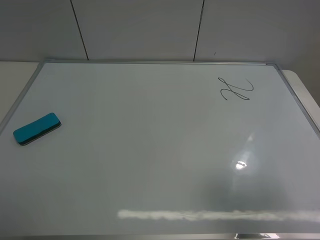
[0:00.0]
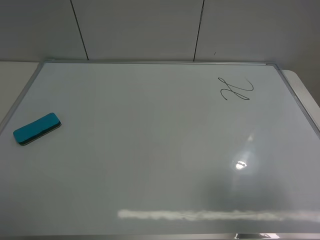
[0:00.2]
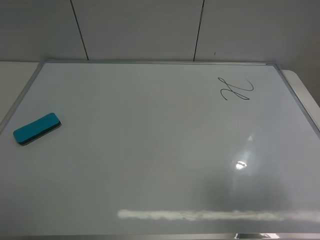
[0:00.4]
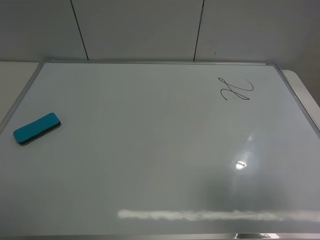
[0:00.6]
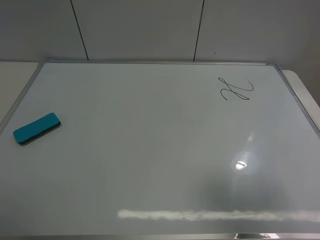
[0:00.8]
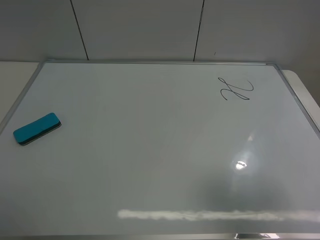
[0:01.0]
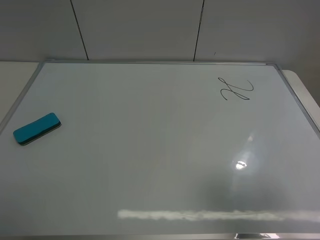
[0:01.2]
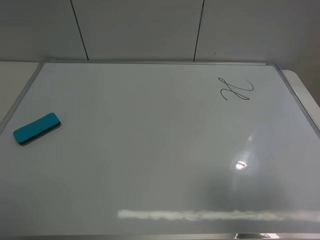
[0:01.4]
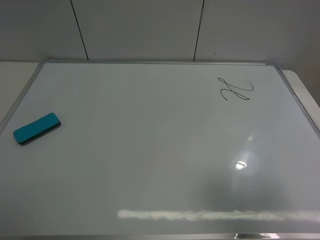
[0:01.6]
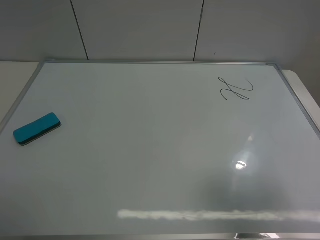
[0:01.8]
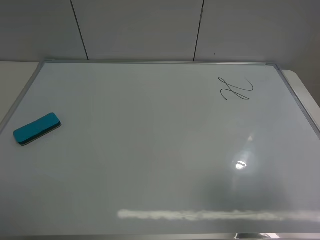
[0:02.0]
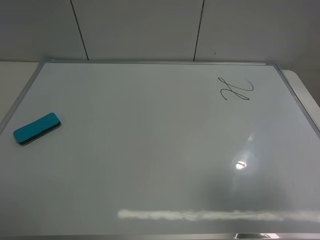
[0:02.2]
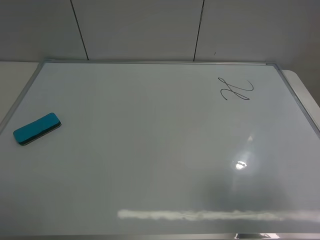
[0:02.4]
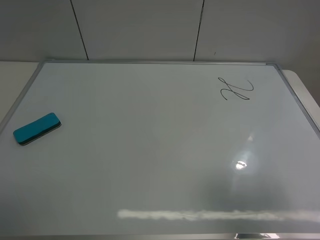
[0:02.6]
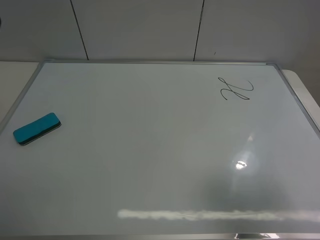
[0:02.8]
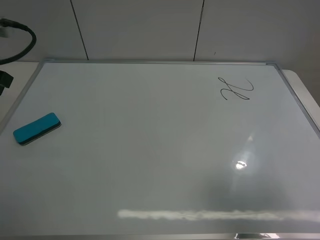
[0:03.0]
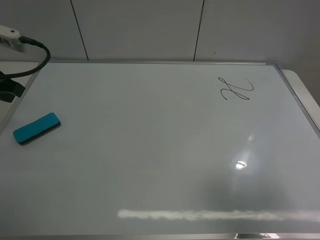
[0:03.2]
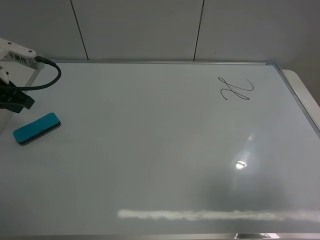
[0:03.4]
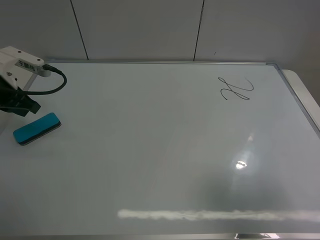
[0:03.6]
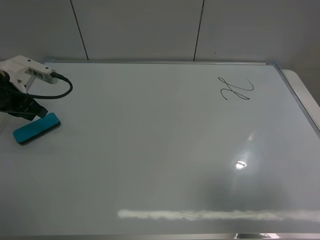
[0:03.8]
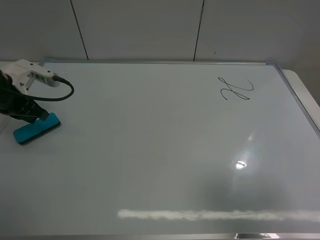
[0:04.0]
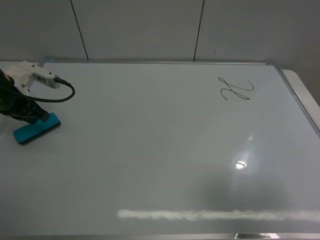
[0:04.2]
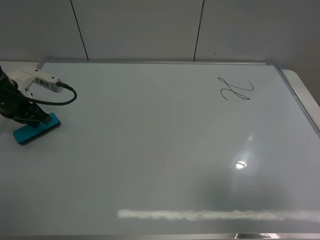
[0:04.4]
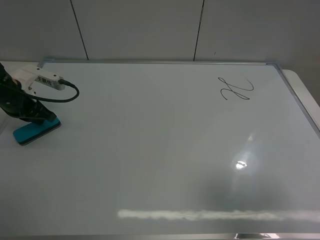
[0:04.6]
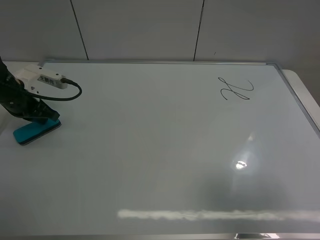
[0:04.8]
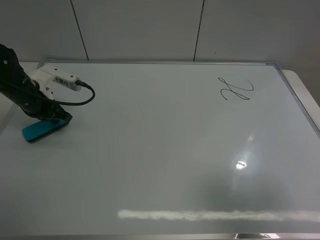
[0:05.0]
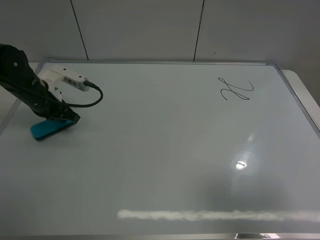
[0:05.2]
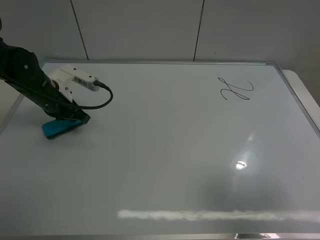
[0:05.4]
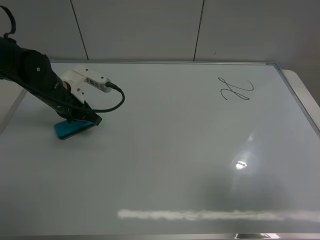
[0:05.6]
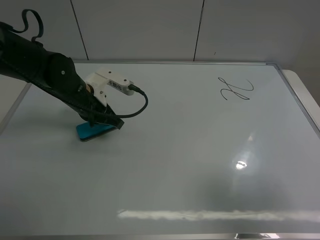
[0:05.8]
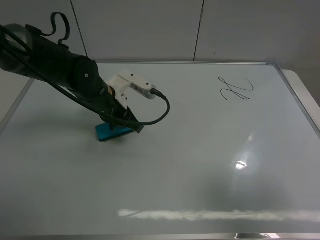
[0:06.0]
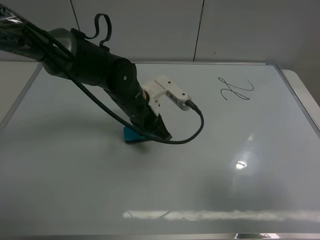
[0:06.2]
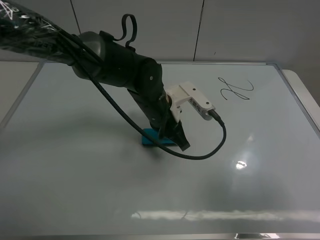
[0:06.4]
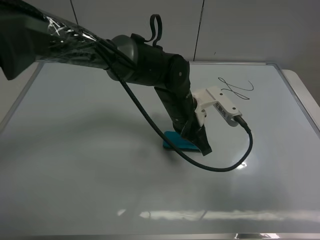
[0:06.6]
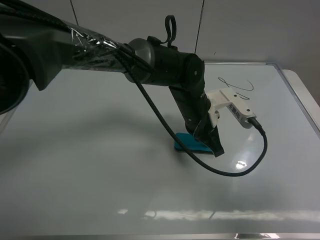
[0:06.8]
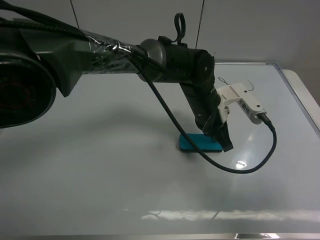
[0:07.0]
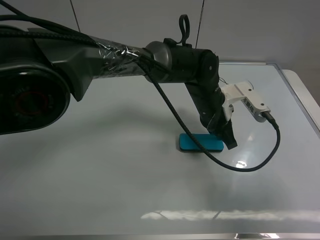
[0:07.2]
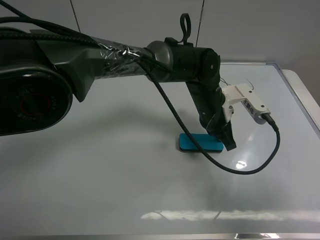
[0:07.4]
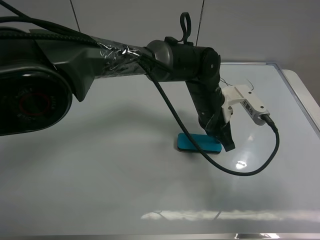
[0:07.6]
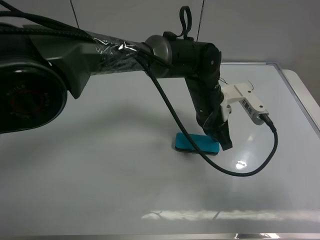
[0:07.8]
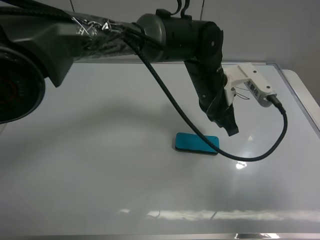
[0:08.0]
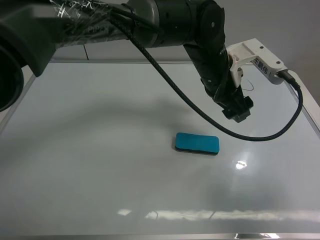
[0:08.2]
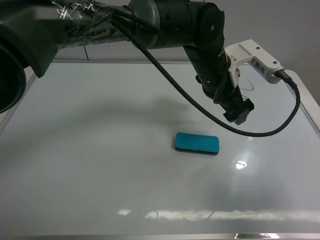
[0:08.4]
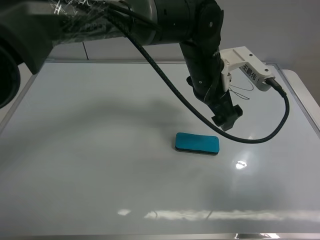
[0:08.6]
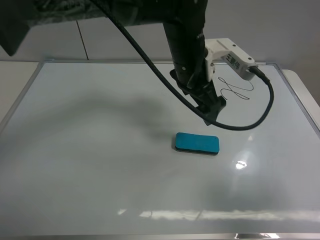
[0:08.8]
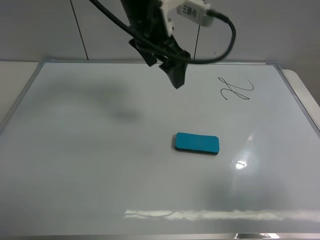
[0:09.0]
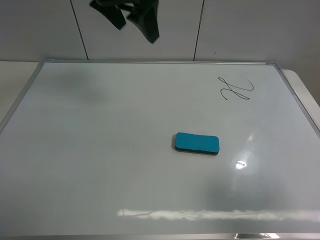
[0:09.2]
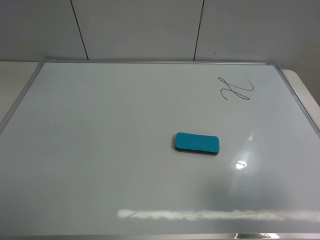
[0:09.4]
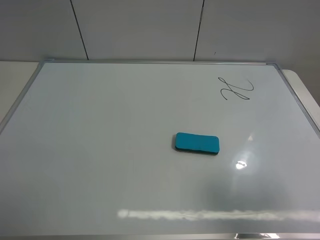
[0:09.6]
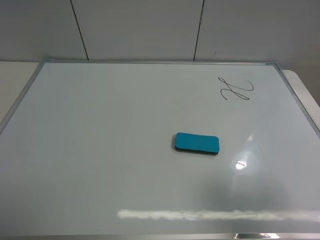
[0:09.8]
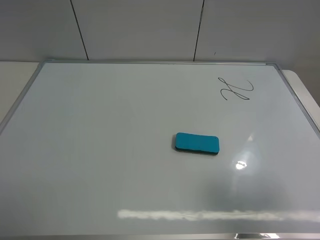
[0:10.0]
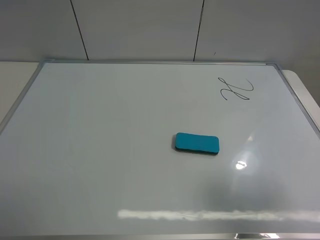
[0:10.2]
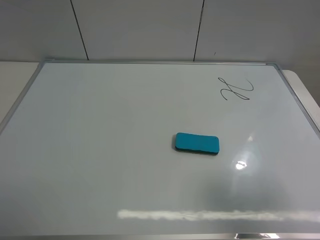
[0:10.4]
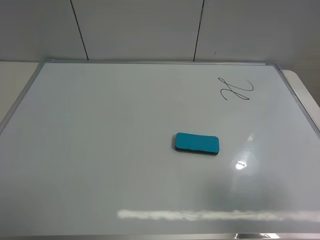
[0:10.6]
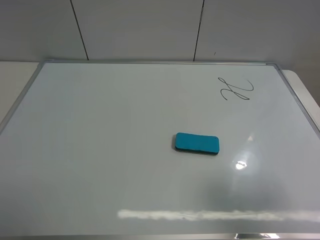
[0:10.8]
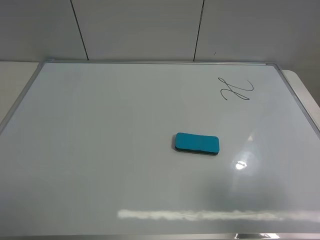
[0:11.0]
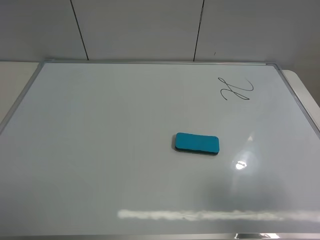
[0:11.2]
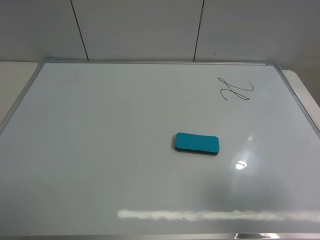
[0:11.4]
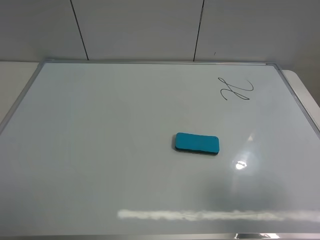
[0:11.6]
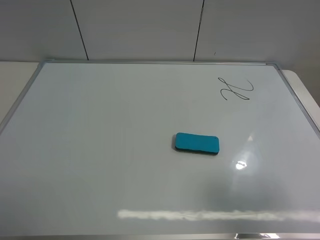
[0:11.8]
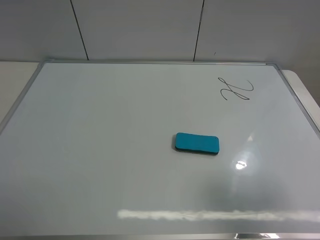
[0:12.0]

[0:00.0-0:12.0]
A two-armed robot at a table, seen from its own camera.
Task of the whole recording: use the left gripper to place the eraser in the right, use the right gripper to pick up the eraser, wipe the notes on the whiteboard clean, and then put it down.
Step, 0:00.0 to 0:07.8: Move the board eraser to the center of the whiteboard with left gripper.
0:00.0 to 0:01.6: Neither gripper changes place.
0:01.6 to 0:03.0: The left gripper heads forward, covering some 25 cm, and closes its fingers.
0:03.0 to 0:04.4: The left gripper is displaced downward and forward by about 15 cm.
0:04.4 to 0:06.0: The left gripper travels to the right by some 20 cm.
0:06.0 to 0:07.6: The left gripper goes roughly 20 cm to the right.
0:07.6 to 0:09.0: The left gripper is displaced upward and to the left by about 25 cm, and opens up.
0:09.0 to 0:10.4: The left gripper heads backward and to the left, covering roughly 50 cm.

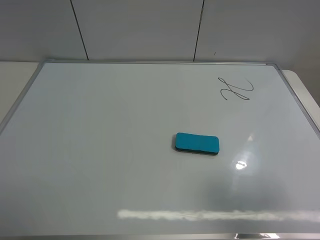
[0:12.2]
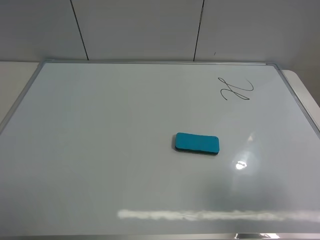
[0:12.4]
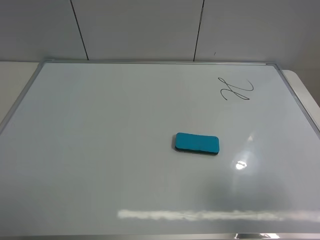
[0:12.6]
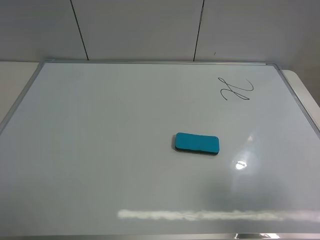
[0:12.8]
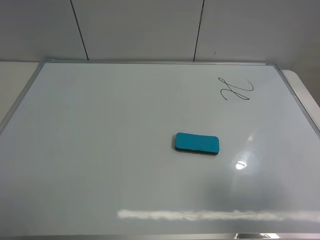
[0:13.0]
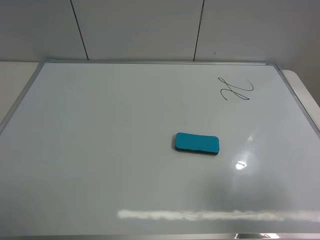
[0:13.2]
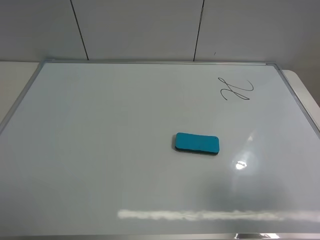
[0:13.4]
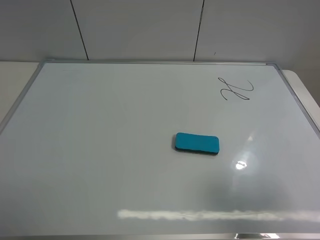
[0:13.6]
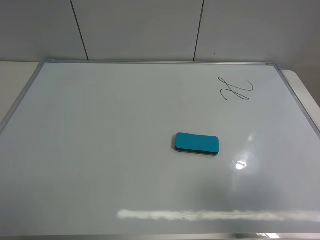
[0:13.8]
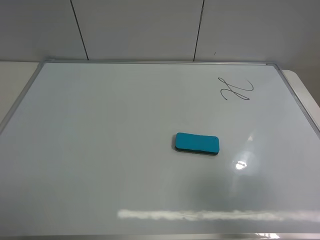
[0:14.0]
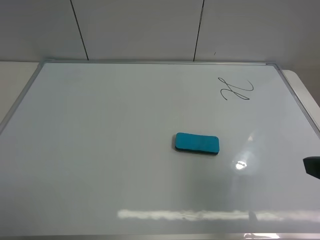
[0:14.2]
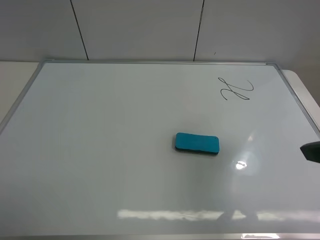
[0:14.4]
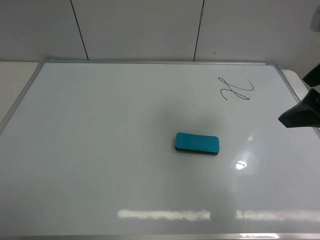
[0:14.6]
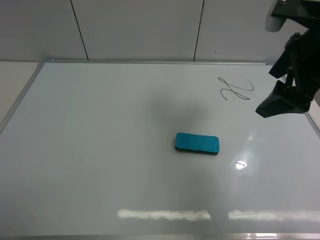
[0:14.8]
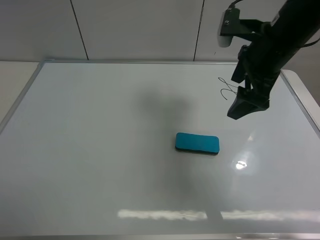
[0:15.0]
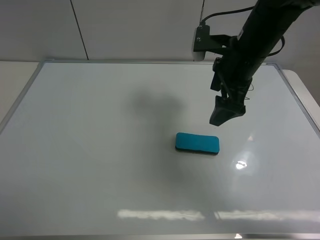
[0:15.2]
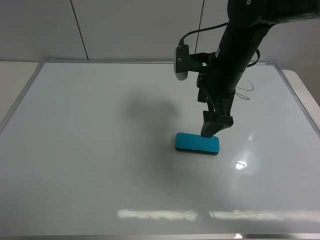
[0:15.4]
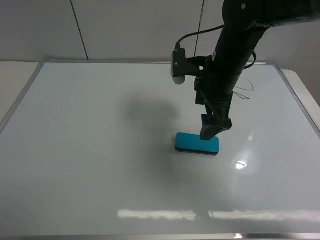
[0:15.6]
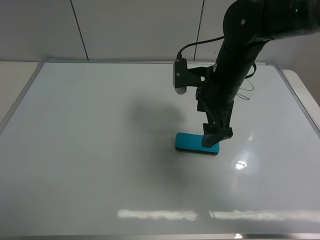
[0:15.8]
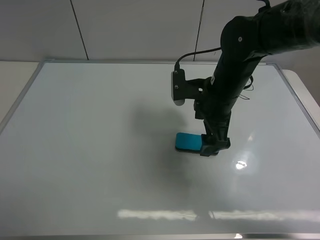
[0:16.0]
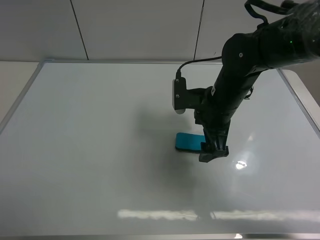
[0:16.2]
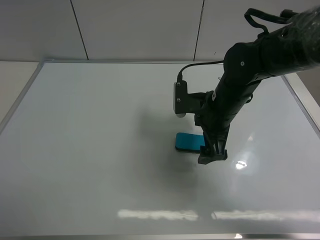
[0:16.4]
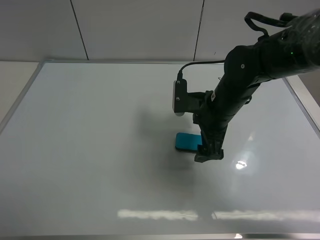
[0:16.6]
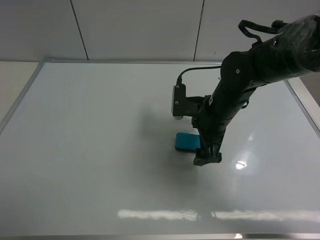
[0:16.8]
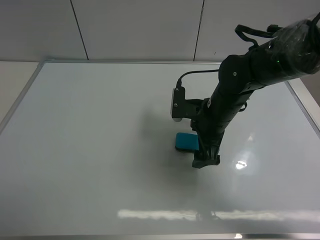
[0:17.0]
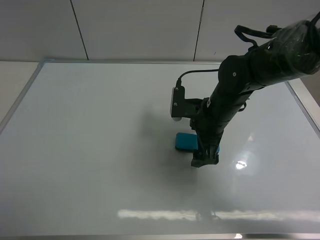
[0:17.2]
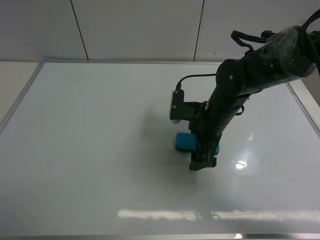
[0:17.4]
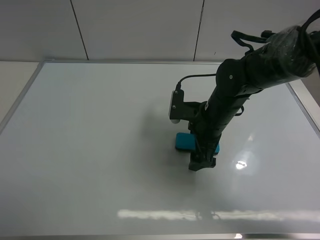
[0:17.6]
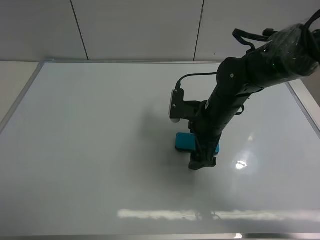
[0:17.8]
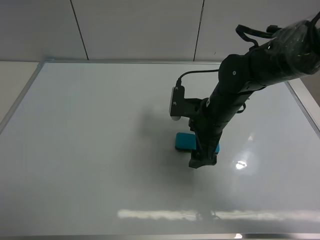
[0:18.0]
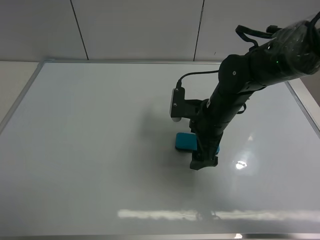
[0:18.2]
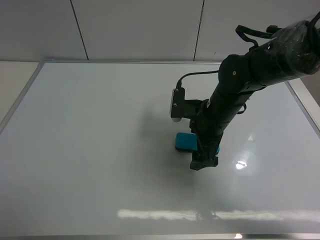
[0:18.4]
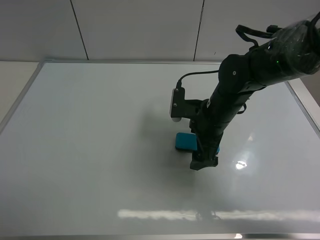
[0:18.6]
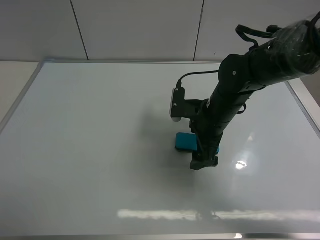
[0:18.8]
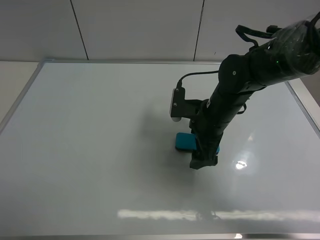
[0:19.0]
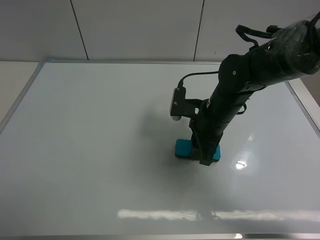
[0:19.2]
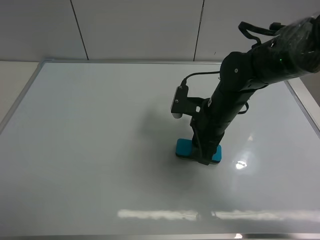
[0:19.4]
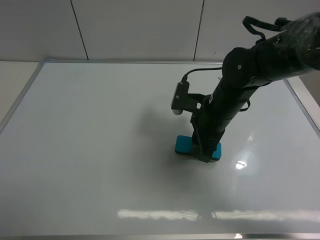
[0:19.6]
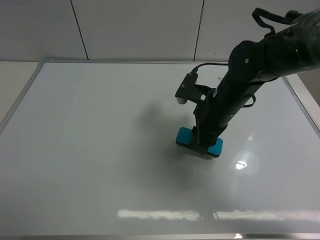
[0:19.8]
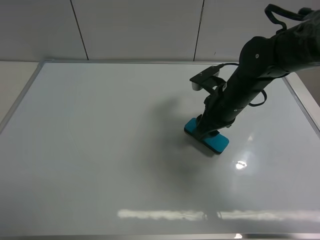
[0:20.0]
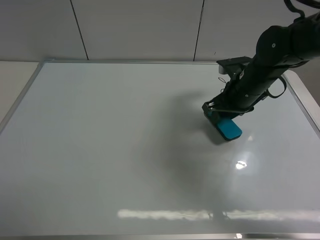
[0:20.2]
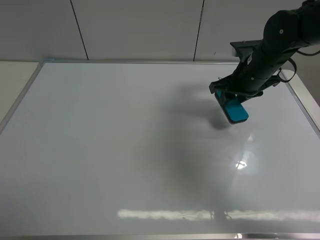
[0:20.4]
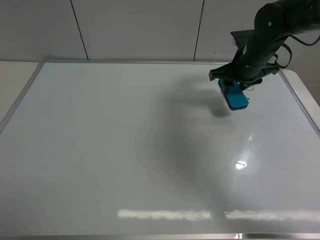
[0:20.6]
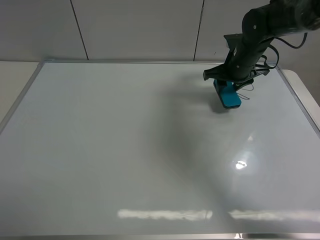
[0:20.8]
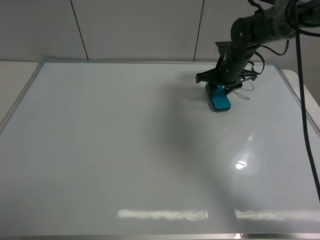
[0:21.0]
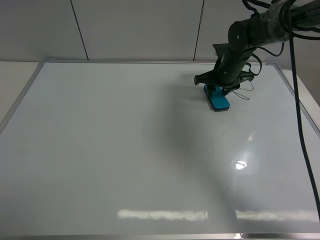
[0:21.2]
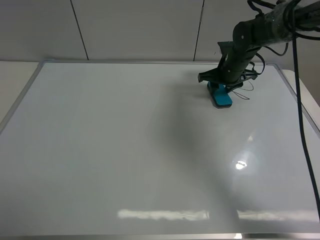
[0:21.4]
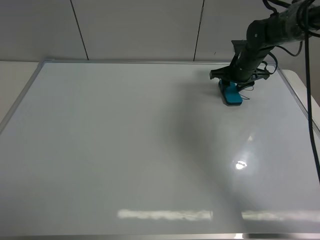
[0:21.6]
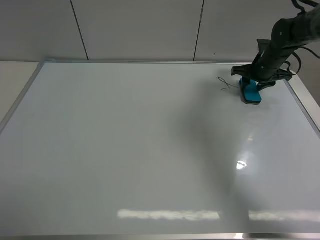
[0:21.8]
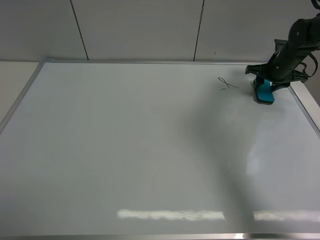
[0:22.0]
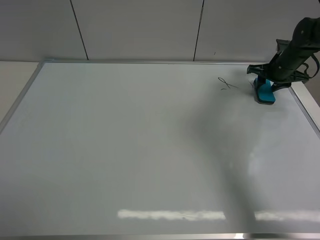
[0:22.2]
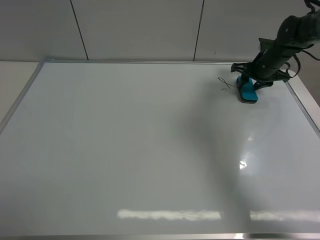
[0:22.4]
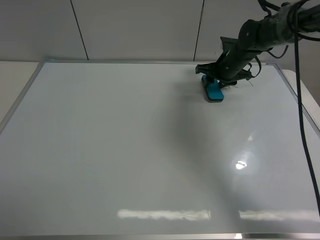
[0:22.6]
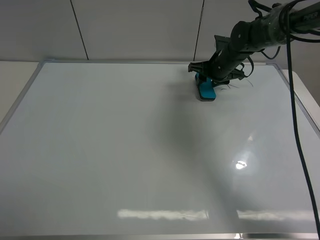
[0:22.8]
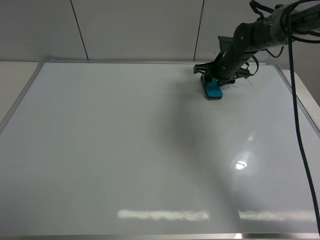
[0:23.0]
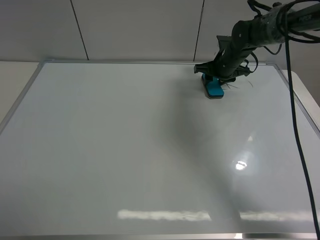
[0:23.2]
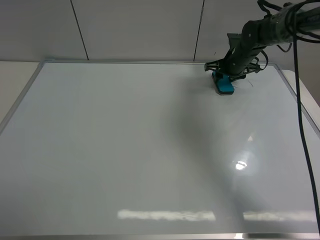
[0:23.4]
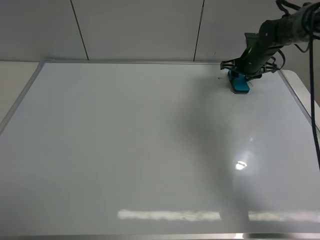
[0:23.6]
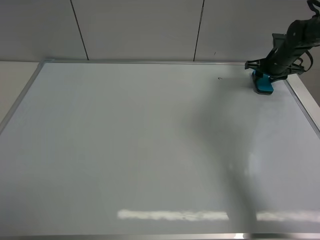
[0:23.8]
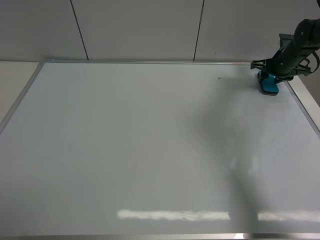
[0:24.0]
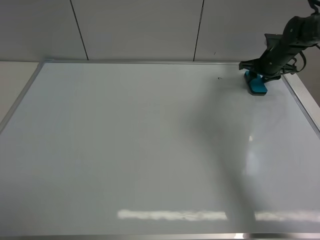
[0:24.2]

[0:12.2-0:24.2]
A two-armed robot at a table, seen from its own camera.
Task of the whole recording: use the left gripper to place the eraser in the right, use the right gripper to pick up the eraser, wipe the notes on the whiteboard clean, and then put it down.
Step, 0:12.2 to 0:19.6: Pick up the board eraser with right gripper.
0:13.8 to 0:15.2: The right gripper shifts about 35 cm forward and to the left.
0:15.2 to 0:16.6: The right gripper shifts about 10 cm downward.
0:16.6 to 0:18.2: There are only small adjustments of the grippers.
0:18.2 to 0:19.8: The right gripper closes its fingers.
0:19.8 to 0:21.2: The right gripper heads forward, covering approximately 15 cm.
0:21.2 to 0:22.6: The right gripper goes to the right and returns, about 15 cm each way.
0:22.6 to 0:24.2: The right gripper goes about 10 cm to the right.
